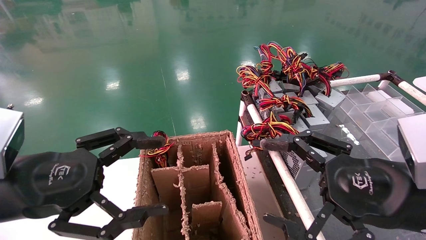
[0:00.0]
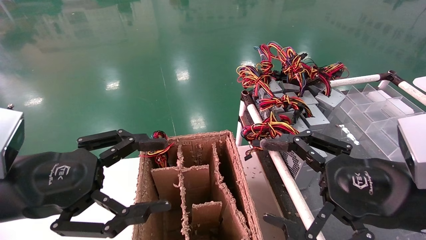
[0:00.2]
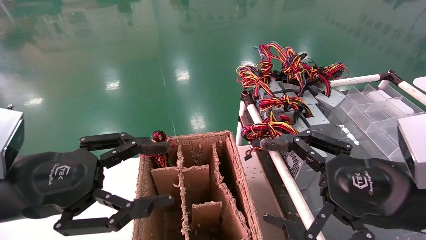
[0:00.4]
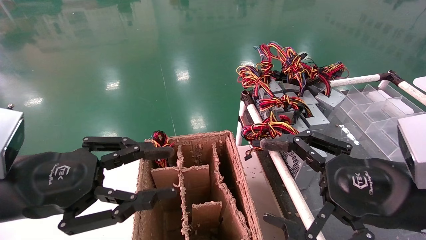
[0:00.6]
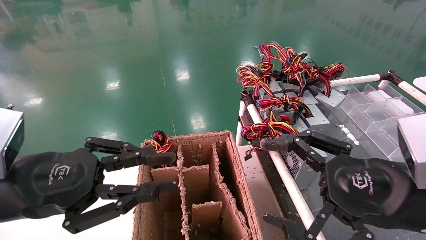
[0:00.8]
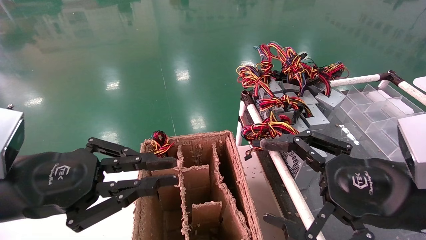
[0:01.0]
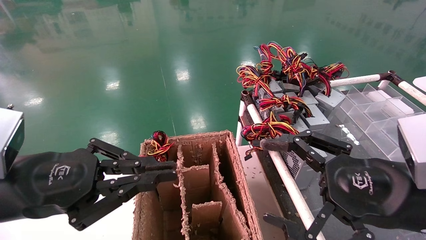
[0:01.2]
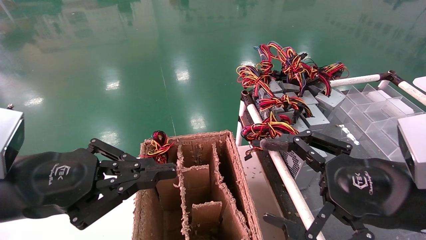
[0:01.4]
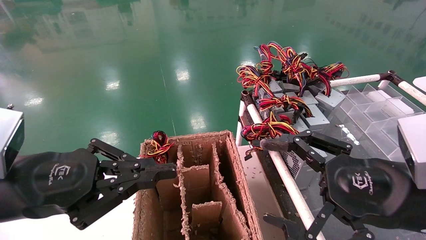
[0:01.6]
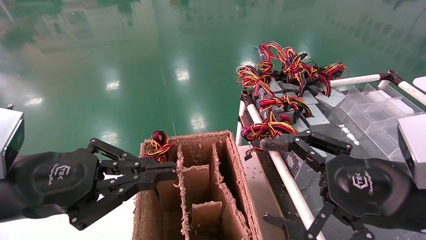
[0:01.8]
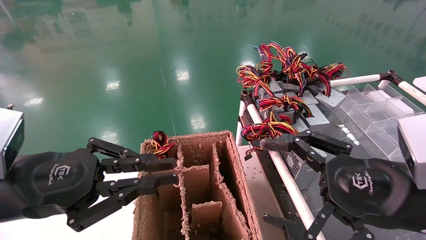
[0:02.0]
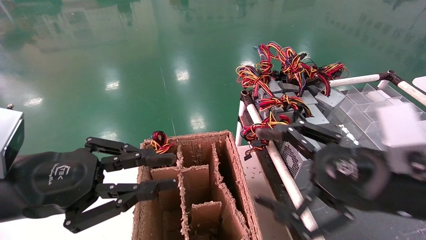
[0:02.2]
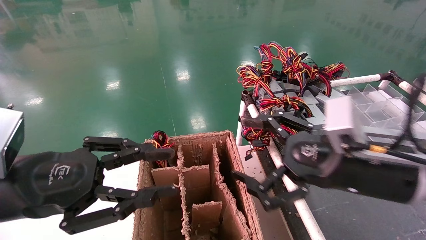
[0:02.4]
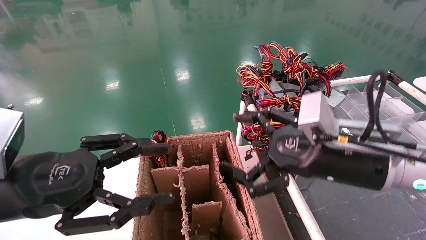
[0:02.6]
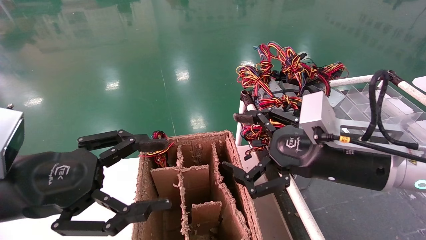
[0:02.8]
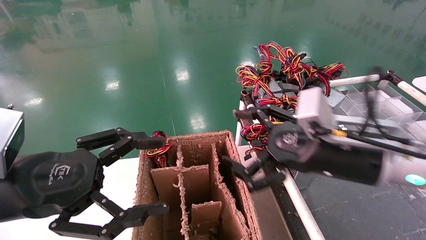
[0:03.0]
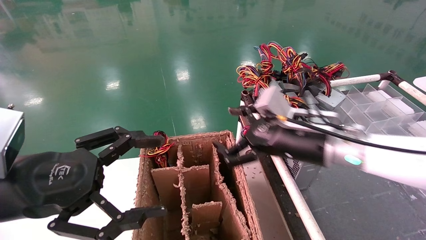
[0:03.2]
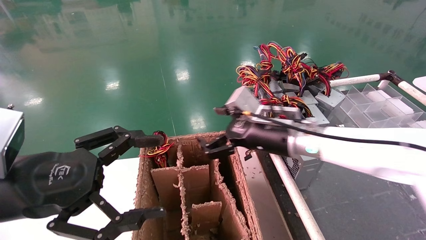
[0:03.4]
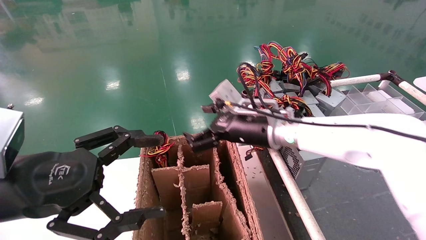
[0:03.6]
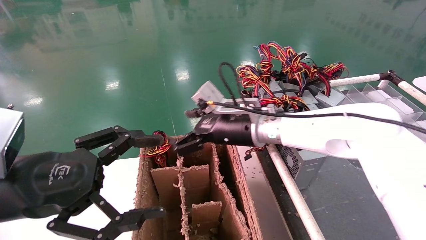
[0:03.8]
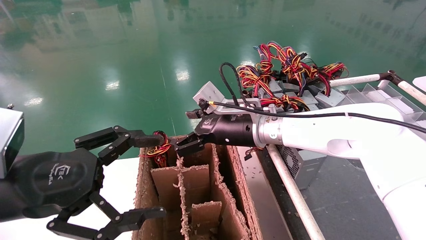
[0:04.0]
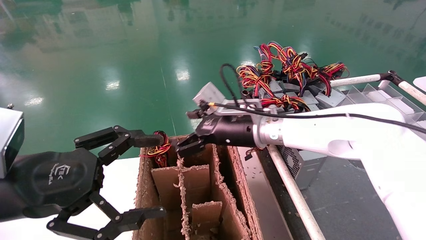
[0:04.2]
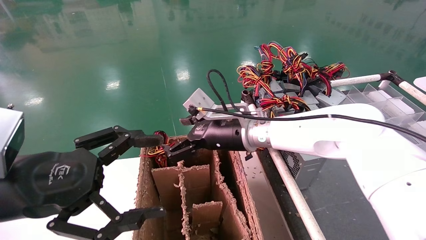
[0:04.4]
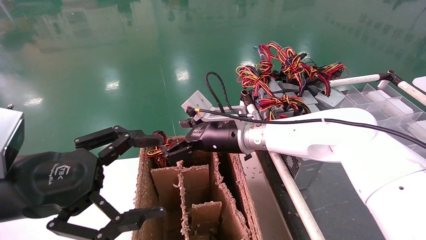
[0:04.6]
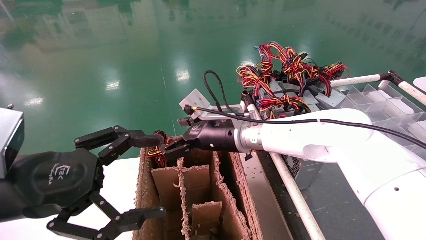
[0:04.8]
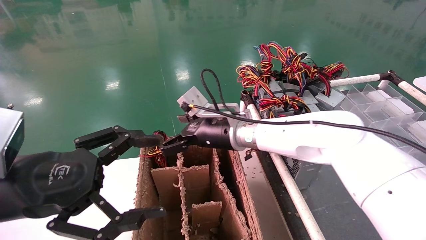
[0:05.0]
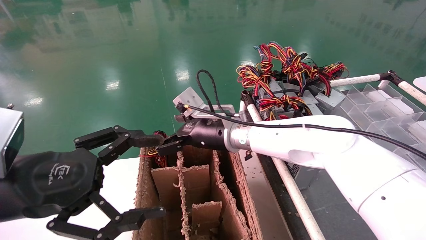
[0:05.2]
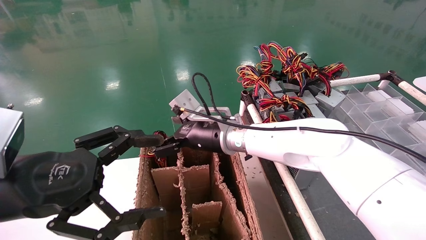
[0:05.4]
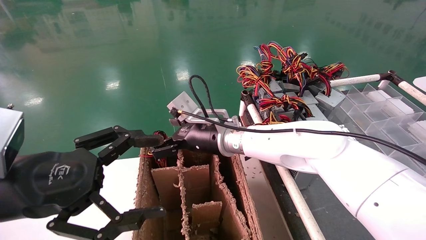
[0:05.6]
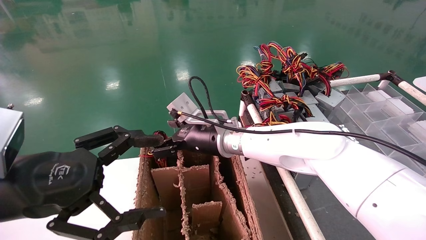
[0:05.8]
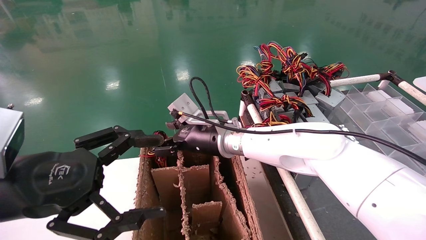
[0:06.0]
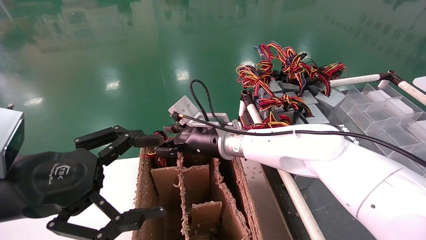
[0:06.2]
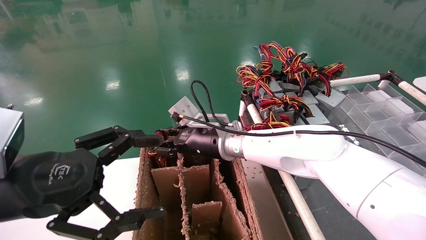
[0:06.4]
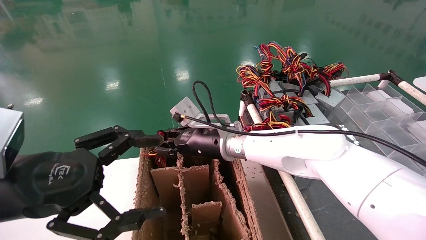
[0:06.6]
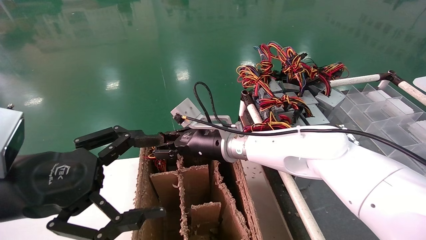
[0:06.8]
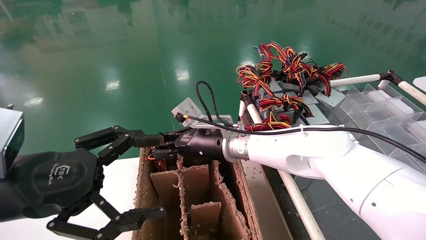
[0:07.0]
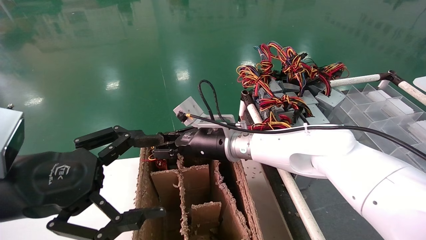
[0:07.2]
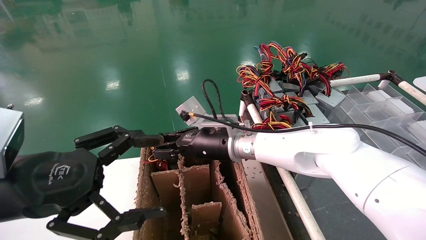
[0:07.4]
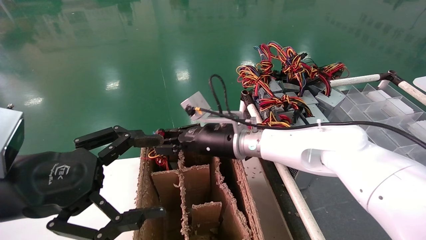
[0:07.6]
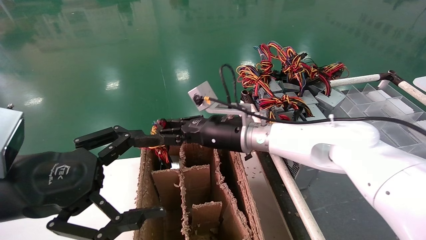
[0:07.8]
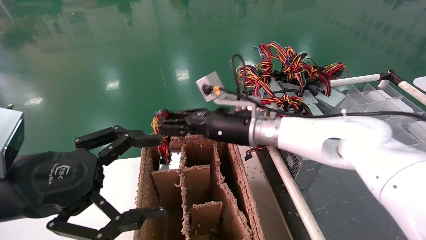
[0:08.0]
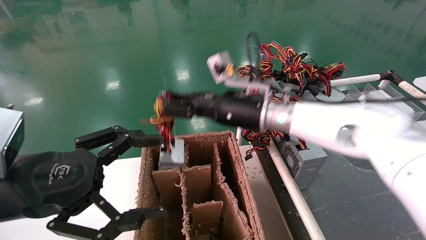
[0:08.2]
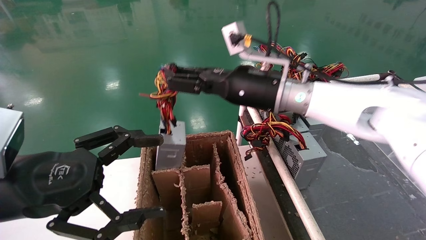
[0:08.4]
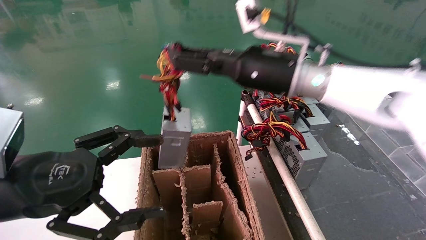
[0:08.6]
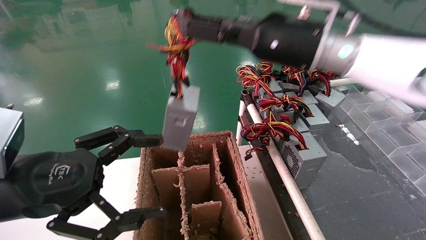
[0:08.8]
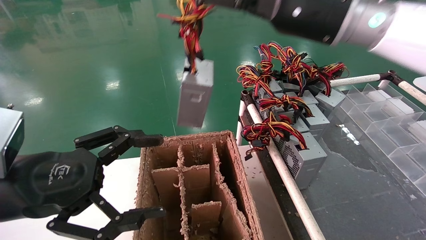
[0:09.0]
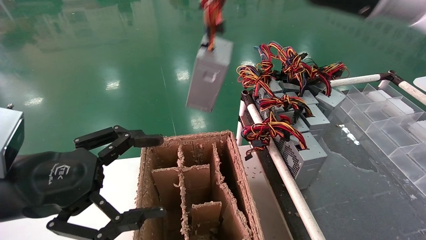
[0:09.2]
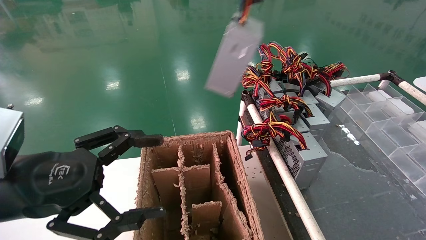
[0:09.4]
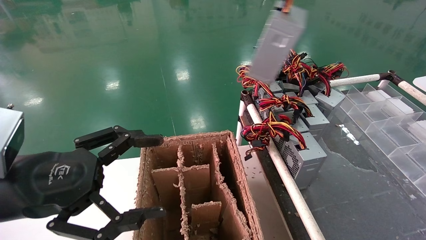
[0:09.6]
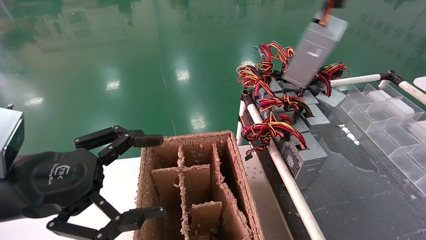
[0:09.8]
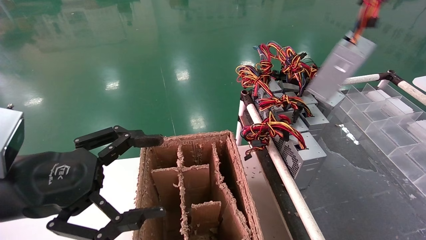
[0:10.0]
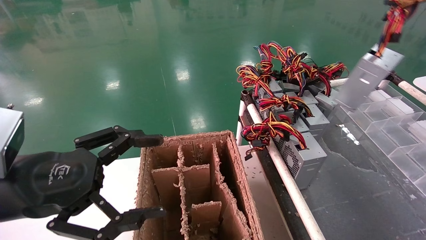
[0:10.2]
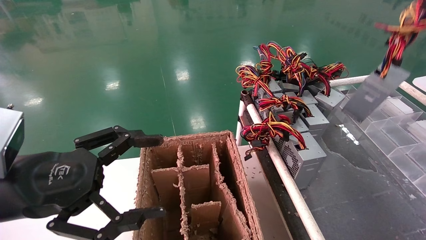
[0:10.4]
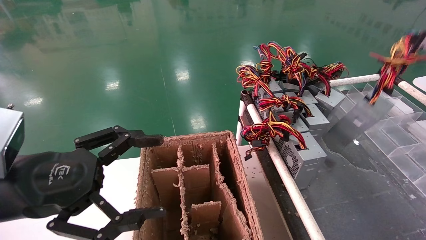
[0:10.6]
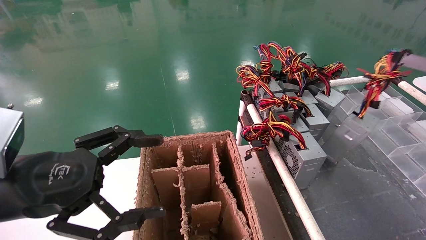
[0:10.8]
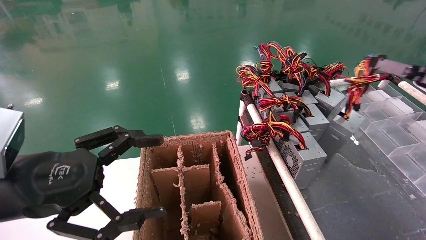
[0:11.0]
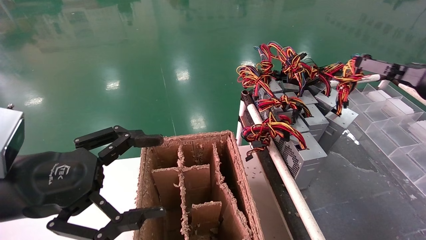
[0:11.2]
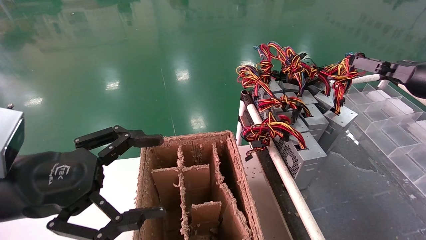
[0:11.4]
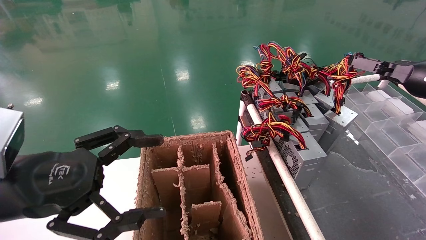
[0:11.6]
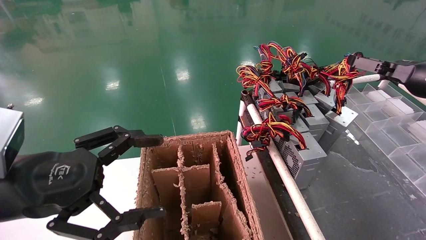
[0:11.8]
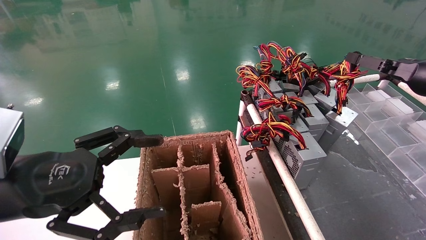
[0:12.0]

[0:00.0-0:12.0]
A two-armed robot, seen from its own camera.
Step, 0:01.6 to 0:06.6: Grab and lift the power supply from the large box.
0:00.0 to 0:01.6: The left gripper closes its fingers.
0:01.6 to 0:03.0: The right gripper goes some 15 cm forward and to the left. Meanwhile the left gripper opens up.
0:03.0 to 0:04.4: The right gripper is displaced to the left and forward by approximately 20 cm.
0:04.4 to 0:06.0: The right gripper shifts by approximately 5 cm.
0:06.0 to 0:07.6: The right gripper closes its fingers.
0:07.6 to 0:09.0: The right gripper travels upward and to the right by about 25 cm.
0:09.0 to 0:10.4: The right gripper heads to the right, covering about 30 cm.
0:10.4 to 0:12.0: The right gripper heads forward, downward and to the left, covering approximately 10 cm.

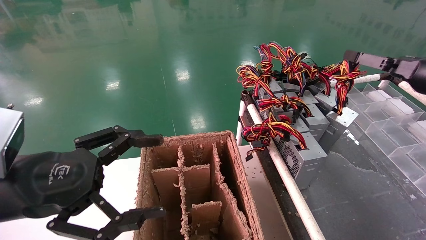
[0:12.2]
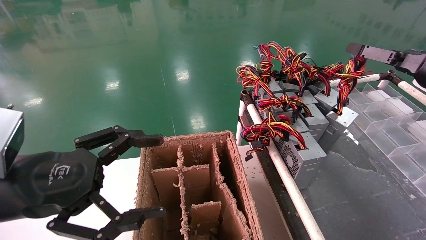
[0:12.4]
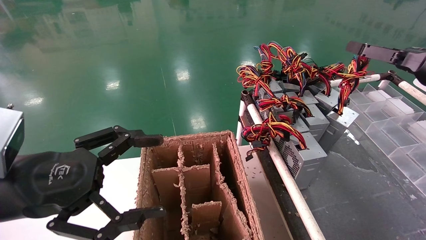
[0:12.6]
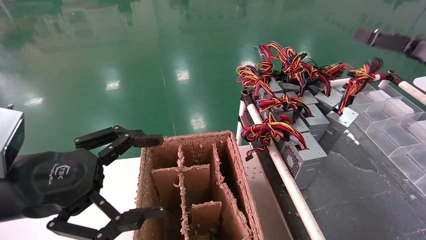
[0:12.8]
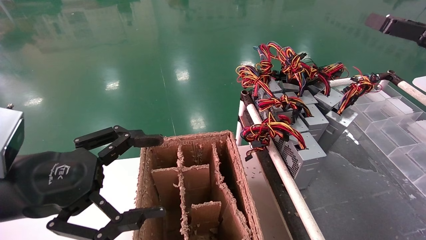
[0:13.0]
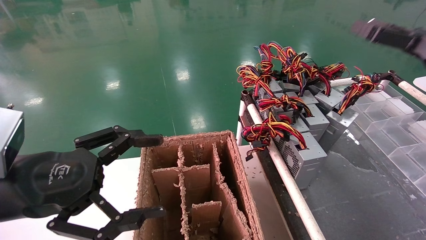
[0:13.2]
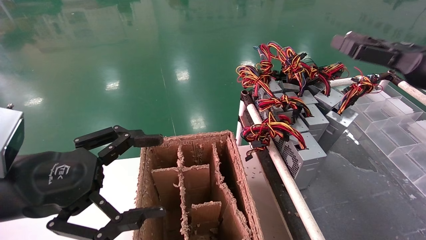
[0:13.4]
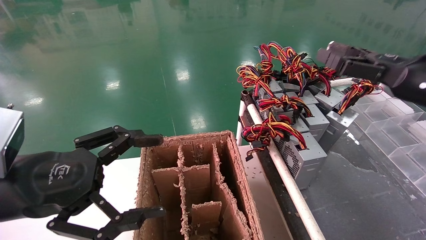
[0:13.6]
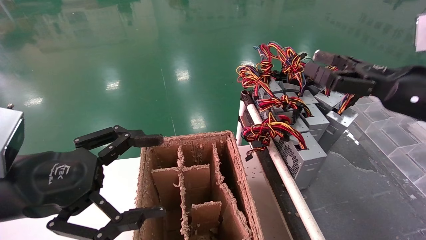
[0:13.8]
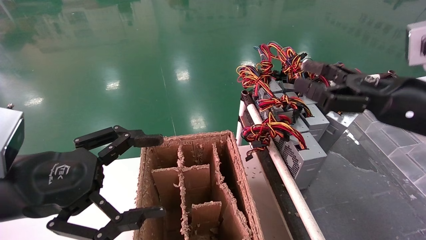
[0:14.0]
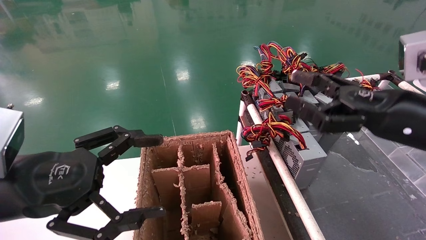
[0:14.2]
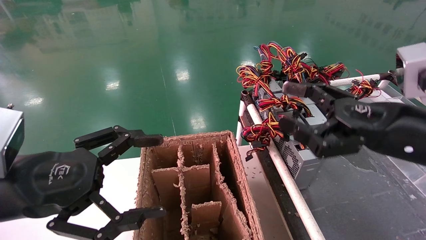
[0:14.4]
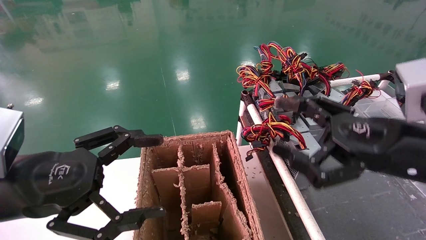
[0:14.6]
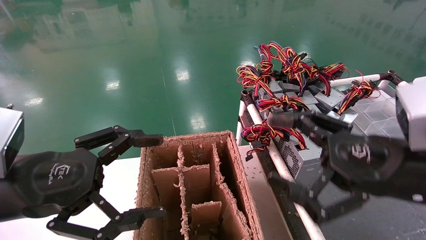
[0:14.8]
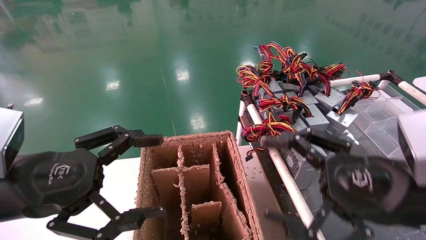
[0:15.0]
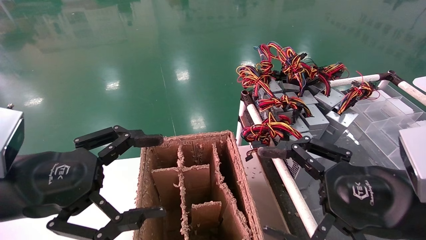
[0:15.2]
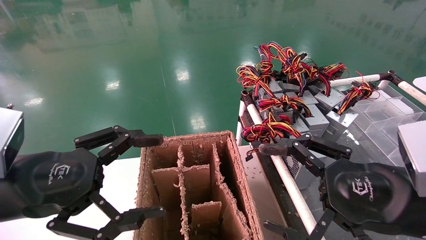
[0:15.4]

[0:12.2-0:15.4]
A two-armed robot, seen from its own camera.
0:12.2 to 0:13.8: The right gripper moves to the left and backward, some 10 cm, and opens its fingers.
0:13.8 to 0:15.4: The right gripper goes roughly 15 cm backward, to the left and downward.

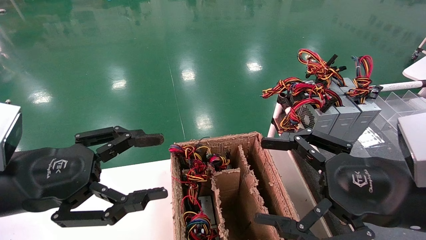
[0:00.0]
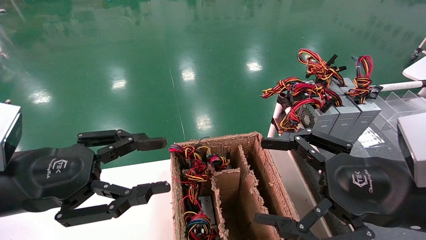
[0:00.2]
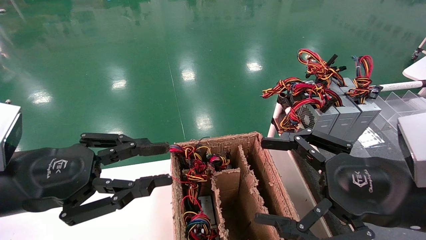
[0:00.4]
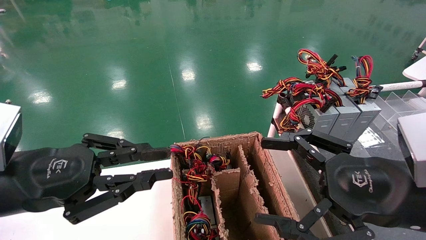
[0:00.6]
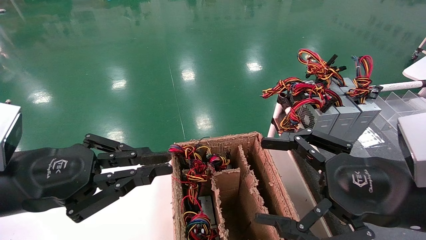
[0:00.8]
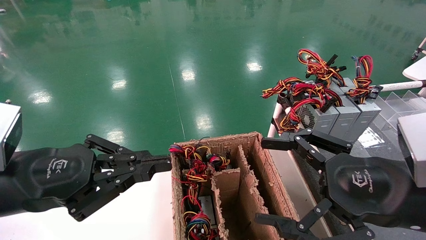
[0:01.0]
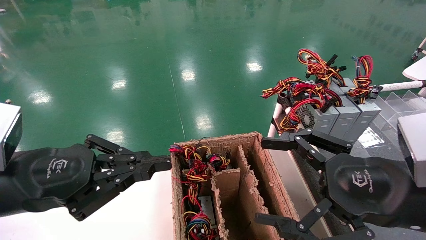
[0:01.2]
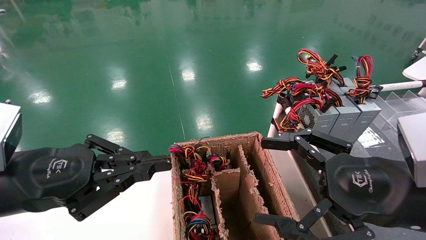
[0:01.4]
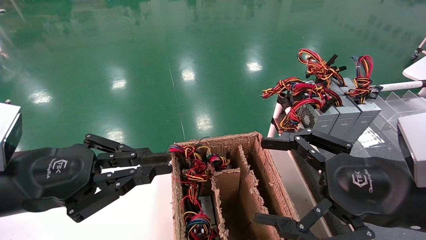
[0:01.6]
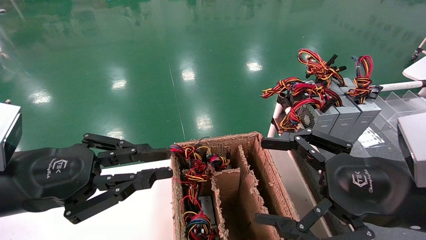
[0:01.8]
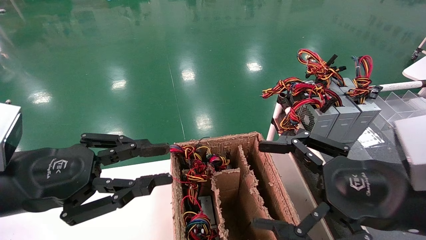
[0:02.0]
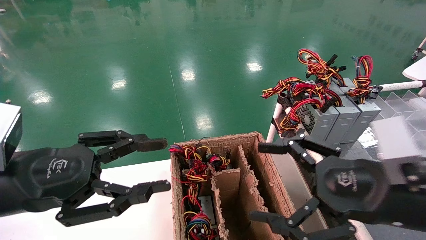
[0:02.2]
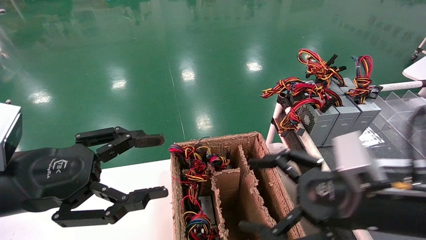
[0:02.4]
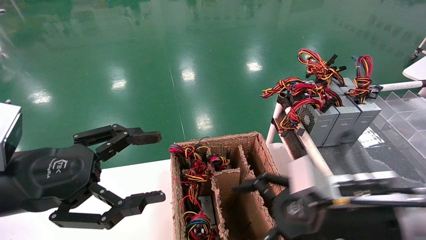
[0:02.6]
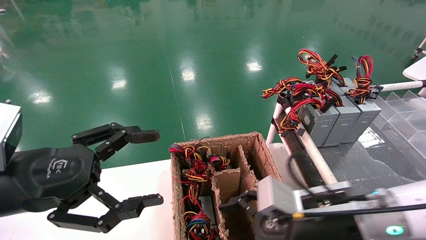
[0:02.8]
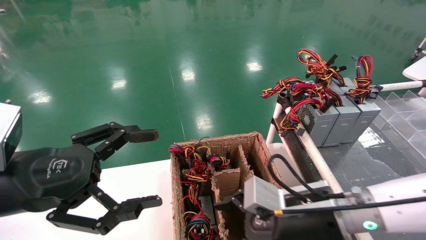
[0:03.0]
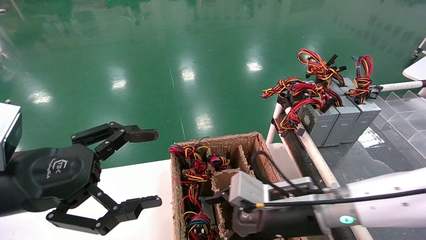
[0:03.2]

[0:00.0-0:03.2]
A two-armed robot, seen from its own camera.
0:00.0 to 0:01.6: The left gripper closes.
0:01.6 to 0:03.2: The right gripper heads to the left, downward and forward, covering roughly 15 cm. Meanwhile the left gripper opens.
